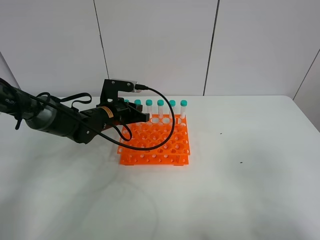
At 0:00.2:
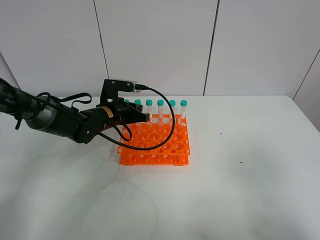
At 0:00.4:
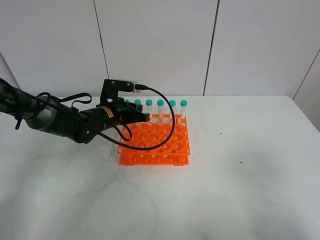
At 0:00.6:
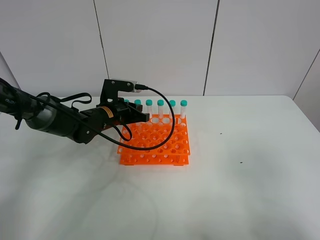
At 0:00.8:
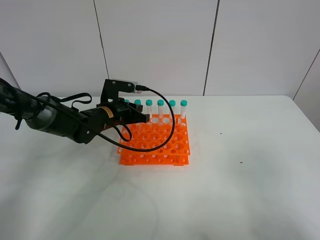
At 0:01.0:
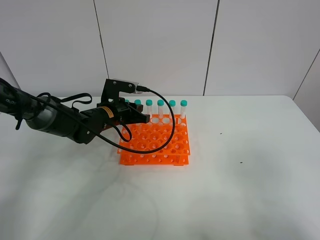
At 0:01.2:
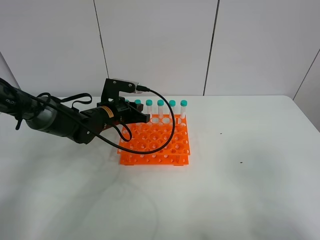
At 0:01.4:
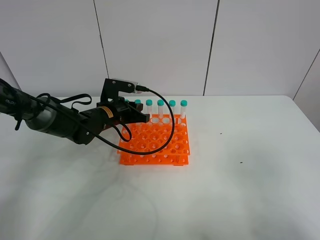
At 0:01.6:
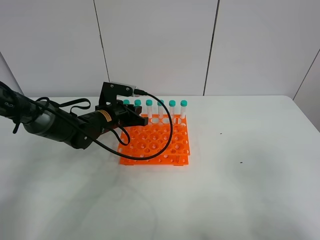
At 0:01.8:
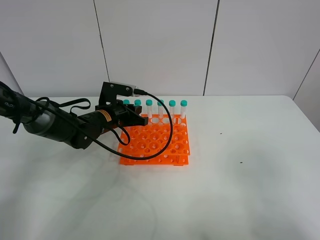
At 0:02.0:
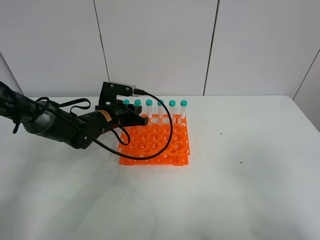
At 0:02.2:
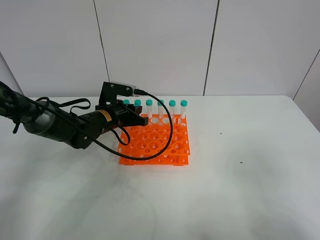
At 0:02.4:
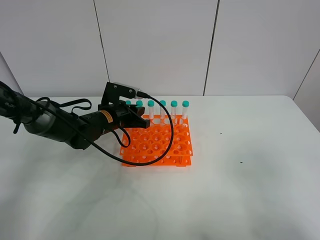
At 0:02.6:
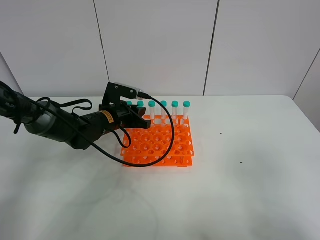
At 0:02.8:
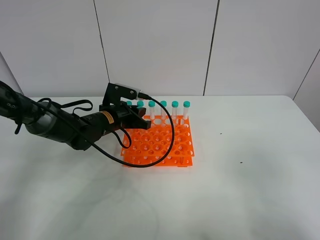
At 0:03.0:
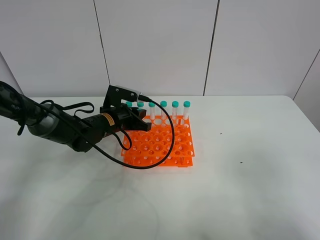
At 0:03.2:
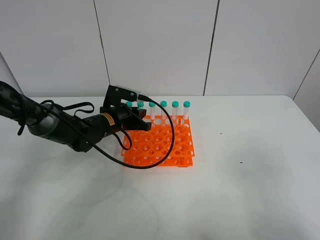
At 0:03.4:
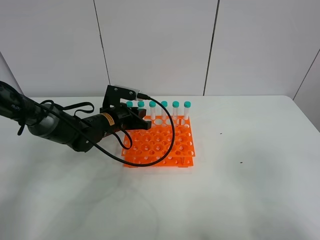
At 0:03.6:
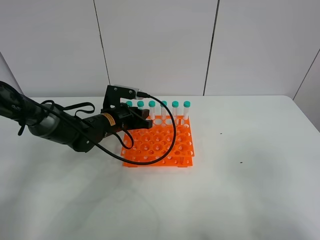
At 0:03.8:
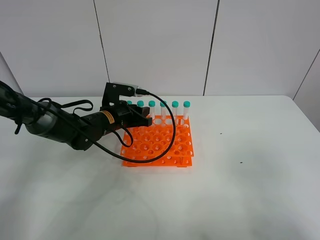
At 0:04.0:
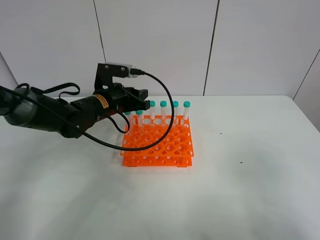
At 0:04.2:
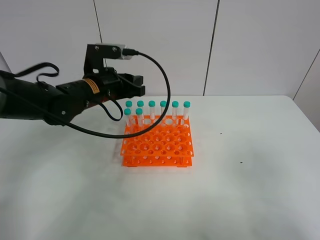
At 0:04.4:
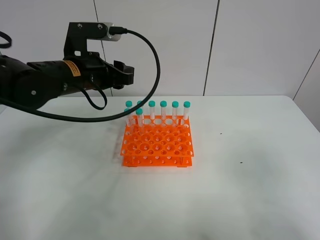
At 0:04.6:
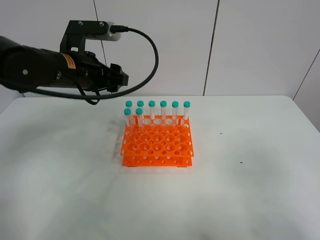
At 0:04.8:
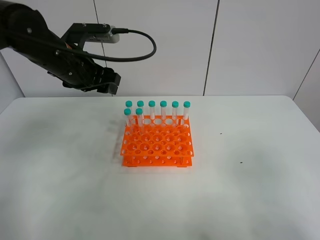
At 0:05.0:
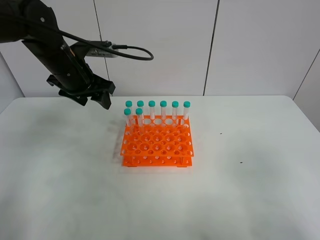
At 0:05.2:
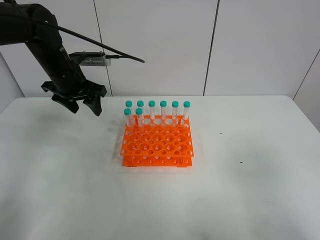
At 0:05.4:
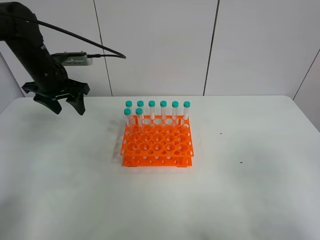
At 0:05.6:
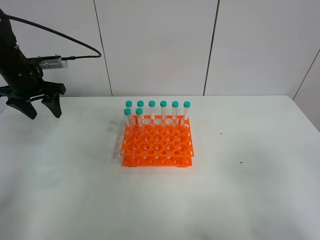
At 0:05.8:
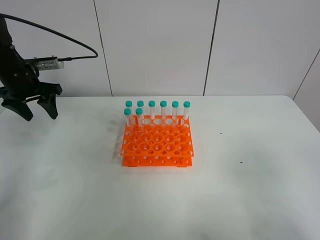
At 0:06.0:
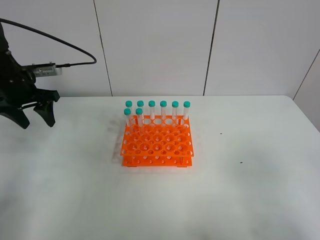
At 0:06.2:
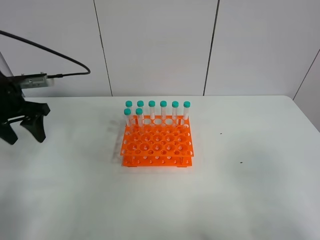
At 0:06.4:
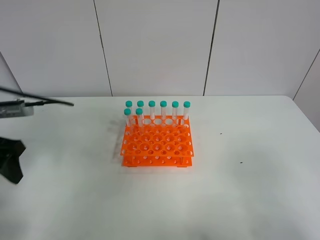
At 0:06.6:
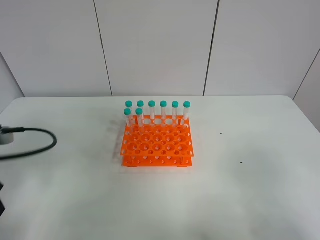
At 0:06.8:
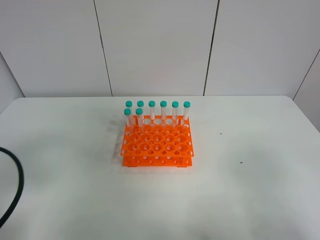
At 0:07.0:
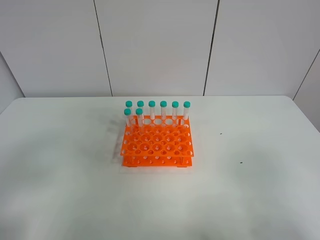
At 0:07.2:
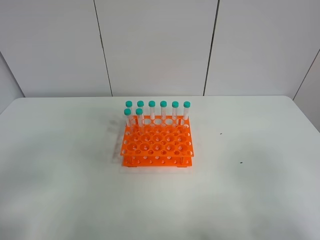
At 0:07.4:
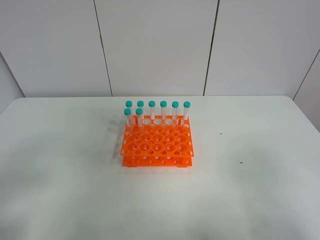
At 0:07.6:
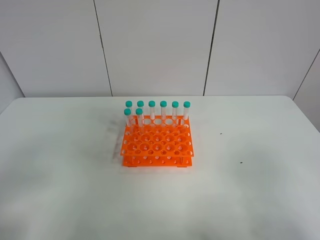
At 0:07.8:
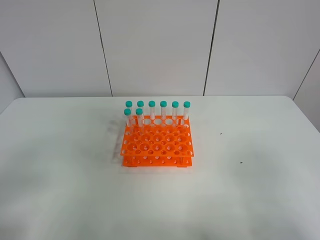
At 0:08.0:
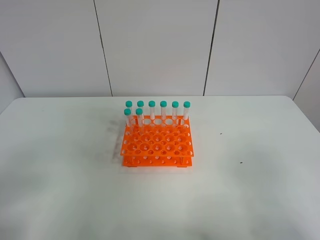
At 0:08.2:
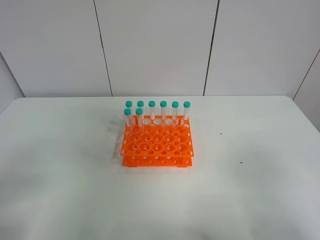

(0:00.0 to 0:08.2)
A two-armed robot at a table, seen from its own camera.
Task of the whole recording: Put the test tube on the table back onto the test tube rack.
Step, 0:00.0 - 0:04.6: Place the test tube on the test tube rack with the left gripper.
0:00.0 - 0:01.6: Both grippers stay about where they are.
0:01.6 - 0:03.2: Both grippers stay about where they are.
0:03.2 - 0:05.0: The left gripper goes roughly 15 cm upward and to the left, and opens.
0:05.0 - 0:06.6: The left gripper goes about 25 cm backward and to the left.
0:06.6 - 0:08.2: The left gripper moves backward, approximately 15 cm.
